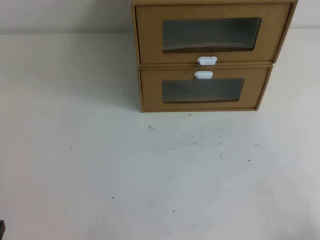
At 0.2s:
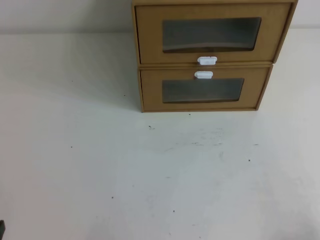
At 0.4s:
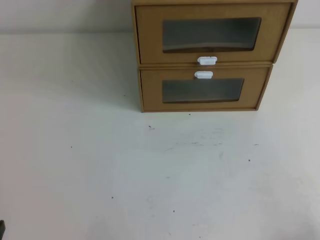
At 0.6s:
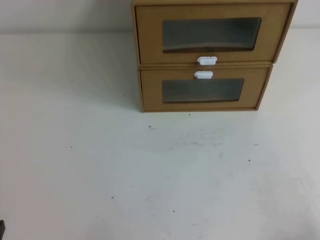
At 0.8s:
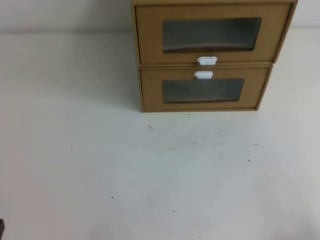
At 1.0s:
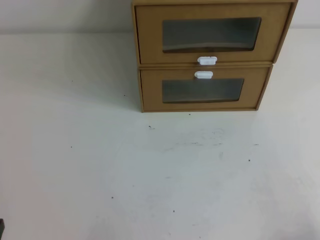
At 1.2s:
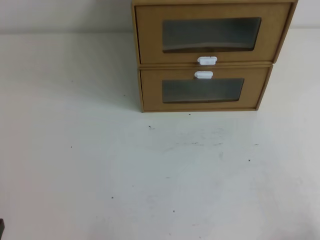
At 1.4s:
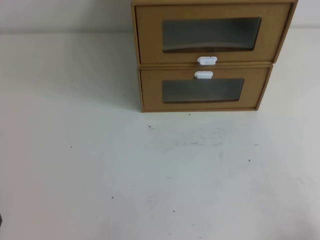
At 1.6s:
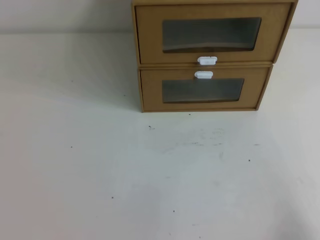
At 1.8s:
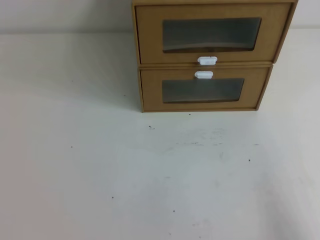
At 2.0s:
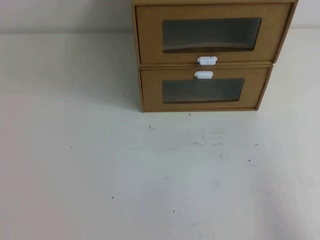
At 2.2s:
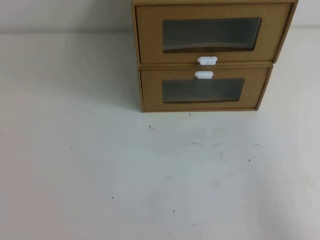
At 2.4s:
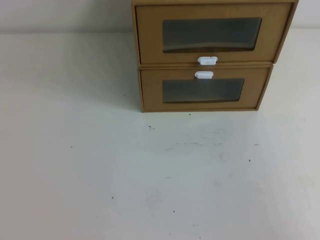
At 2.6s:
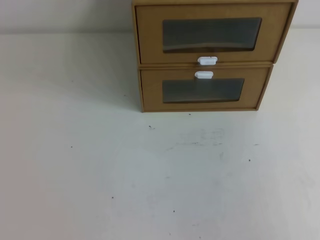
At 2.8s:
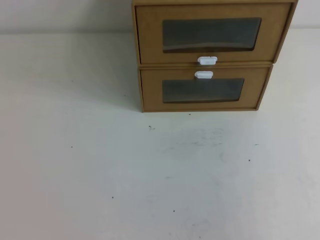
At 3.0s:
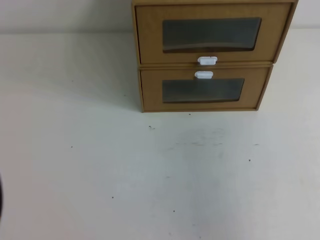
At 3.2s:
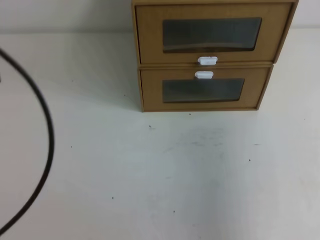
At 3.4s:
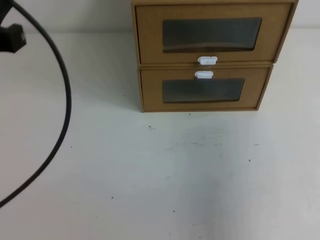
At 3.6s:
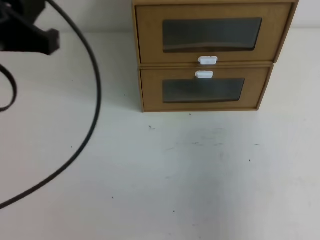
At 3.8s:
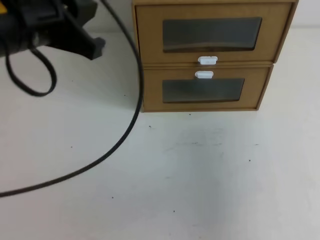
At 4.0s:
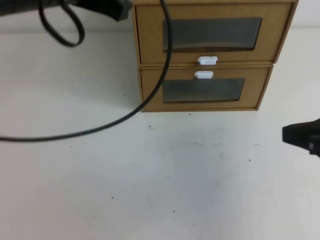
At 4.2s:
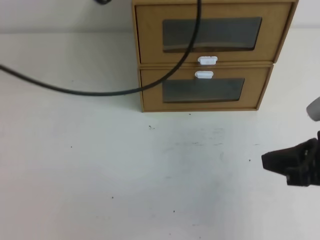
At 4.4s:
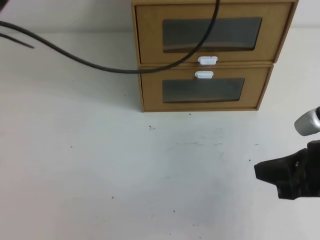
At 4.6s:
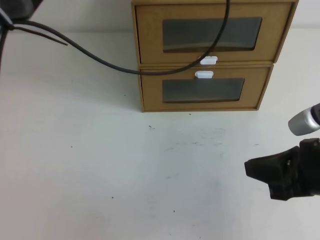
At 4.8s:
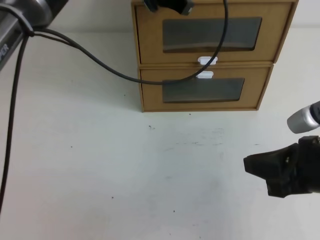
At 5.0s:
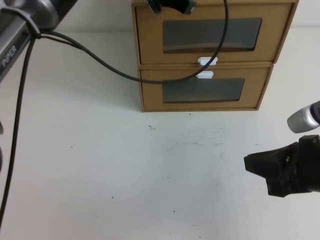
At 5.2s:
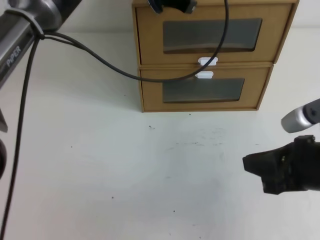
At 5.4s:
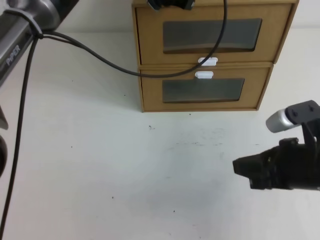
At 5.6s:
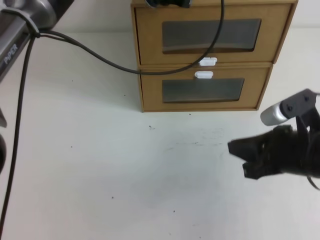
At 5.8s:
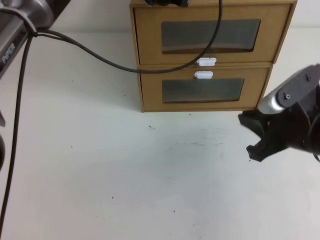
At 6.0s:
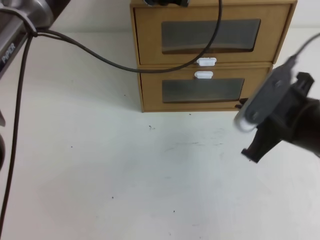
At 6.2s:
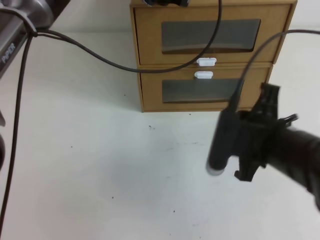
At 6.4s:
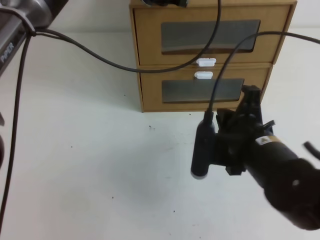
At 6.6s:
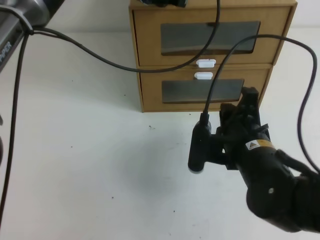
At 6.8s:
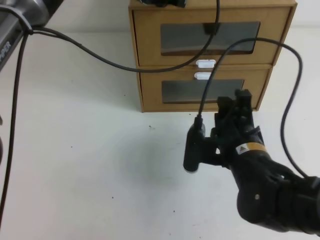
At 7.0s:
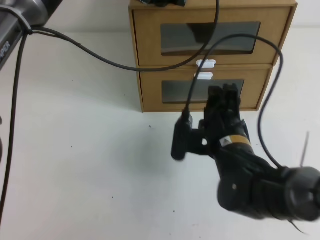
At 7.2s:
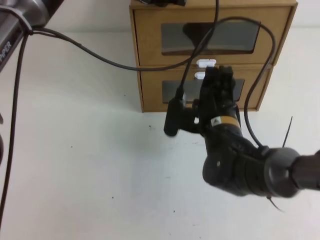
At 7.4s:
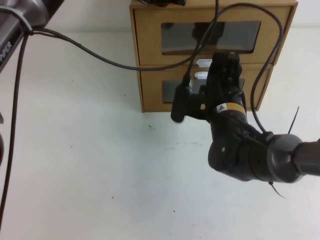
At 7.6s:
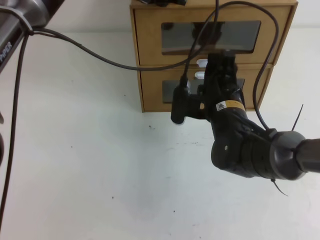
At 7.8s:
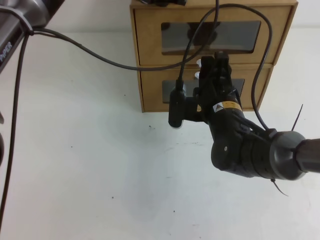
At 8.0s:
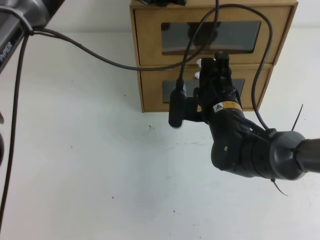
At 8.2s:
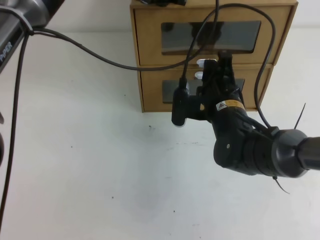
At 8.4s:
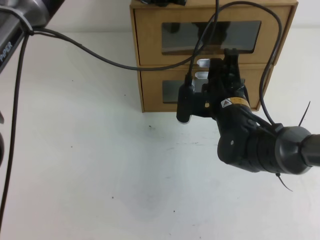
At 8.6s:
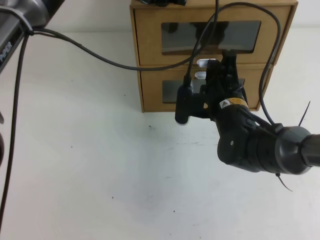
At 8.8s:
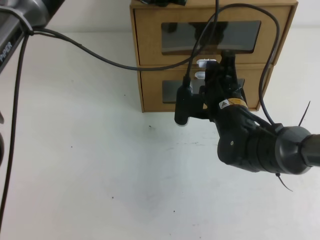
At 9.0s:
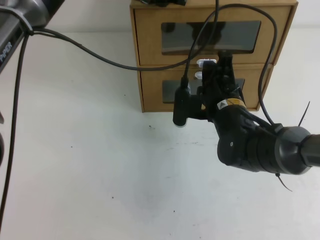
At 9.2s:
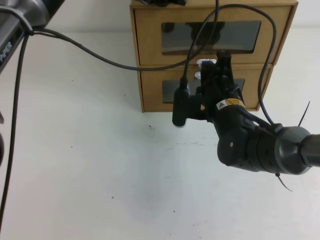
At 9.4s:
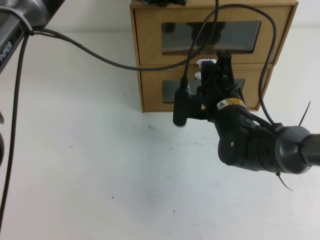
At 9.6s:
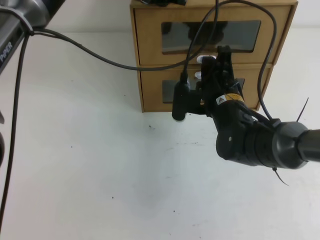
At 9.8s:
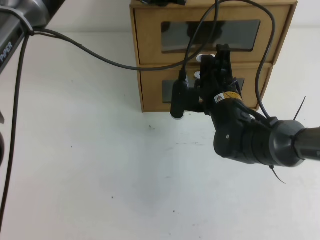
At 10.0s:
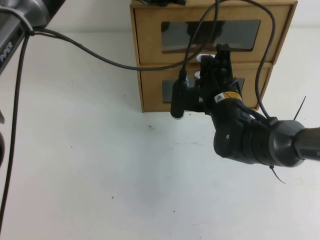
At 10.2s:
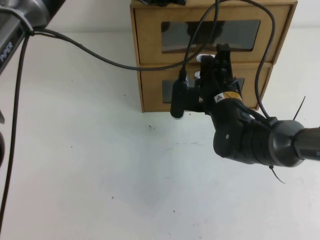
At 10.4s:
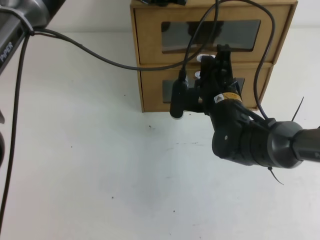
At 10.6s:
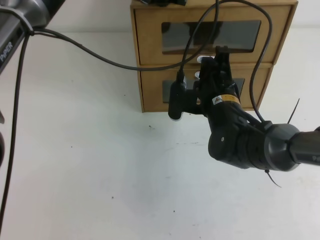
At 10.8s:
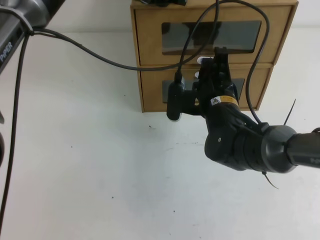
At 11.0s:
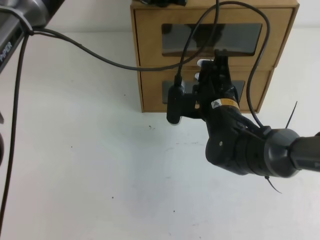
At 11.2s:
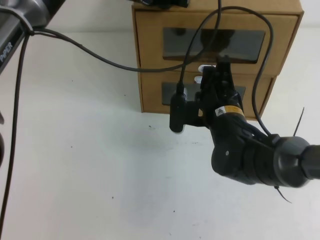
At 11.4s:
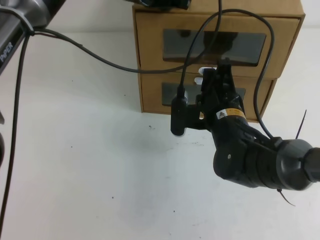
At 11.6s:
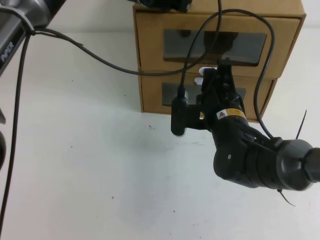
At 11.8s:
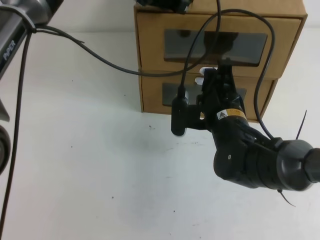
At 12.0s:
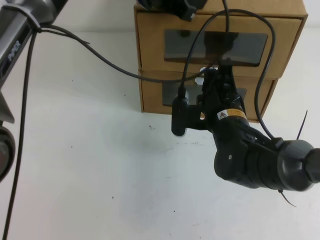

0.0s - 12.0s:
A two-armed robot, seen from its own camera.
Task of the whole recording: open the shoebox on the table.
1.6s - 3.0s: The grippers both shift upward by some 20 cm.
3.0s - 4.4s: The left gripper moves forward and to the right, roughly 35 cm, while the right gripper shifts roughly 20 cm forward, downward and to the left.
4.4s - 6.0s: The right gripper goes about 5 cm forward. Meanwhile the left gripper goes approximately 10 cm forward and downward.
6.0s - 7.6s: The right gripper travels to the left and forward by roughly 15 cm, and opens its fingers.
7.6s - 9.0s: The right gripper closes up.
9.0s - 10.4s: Both grippers stay put.

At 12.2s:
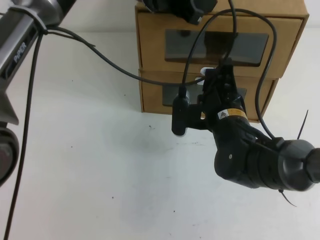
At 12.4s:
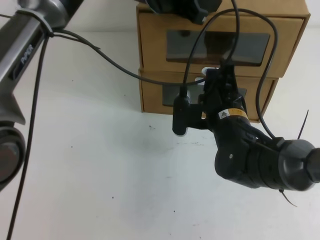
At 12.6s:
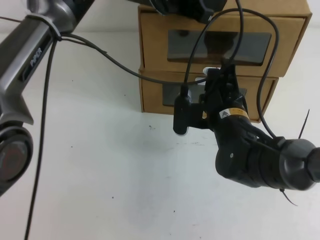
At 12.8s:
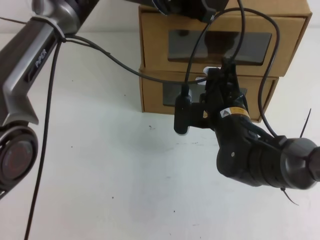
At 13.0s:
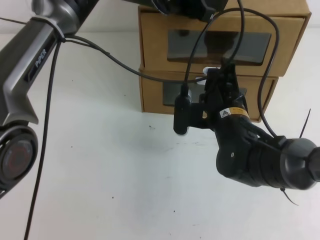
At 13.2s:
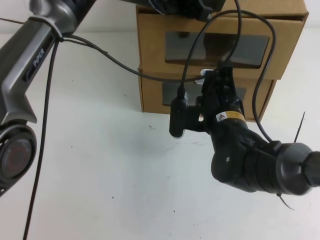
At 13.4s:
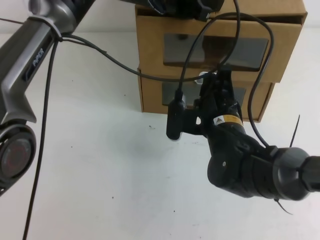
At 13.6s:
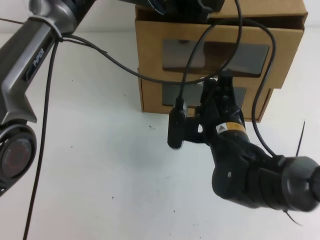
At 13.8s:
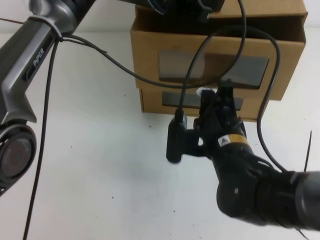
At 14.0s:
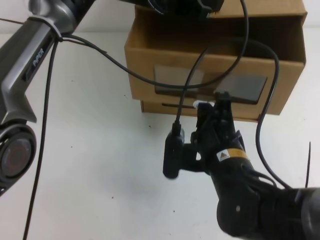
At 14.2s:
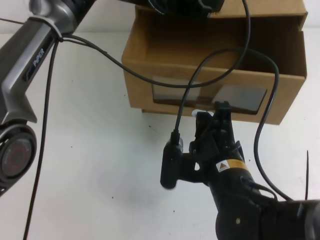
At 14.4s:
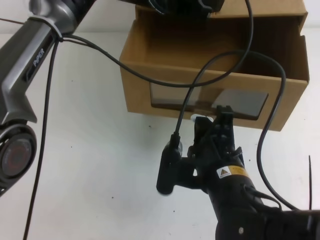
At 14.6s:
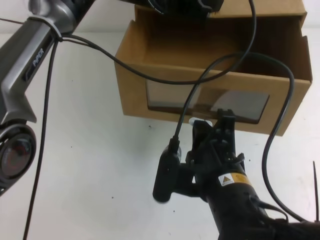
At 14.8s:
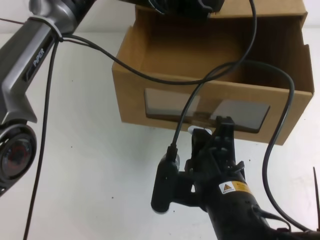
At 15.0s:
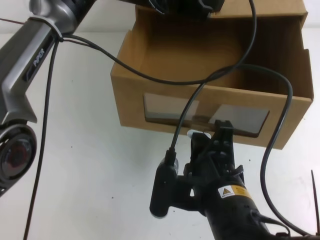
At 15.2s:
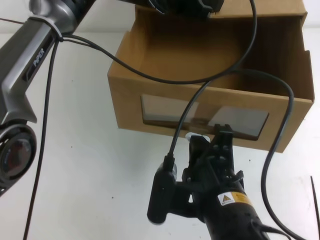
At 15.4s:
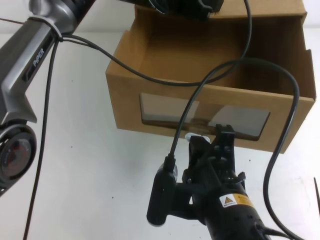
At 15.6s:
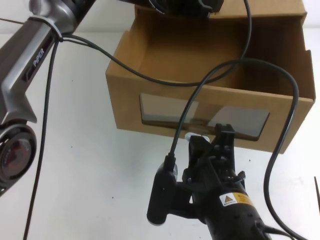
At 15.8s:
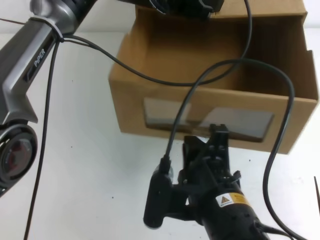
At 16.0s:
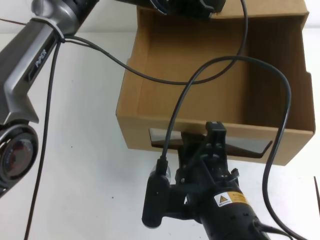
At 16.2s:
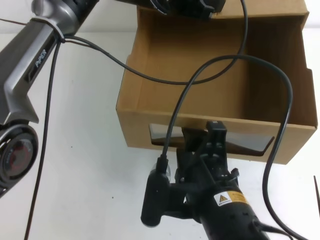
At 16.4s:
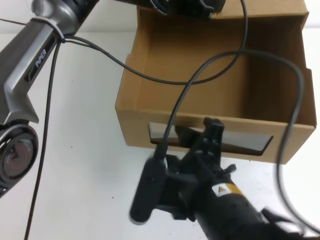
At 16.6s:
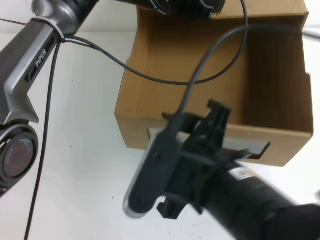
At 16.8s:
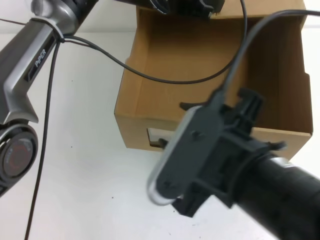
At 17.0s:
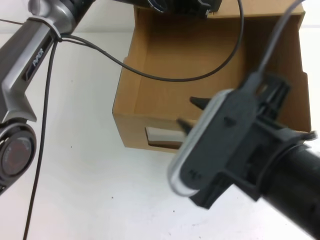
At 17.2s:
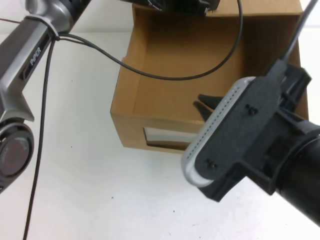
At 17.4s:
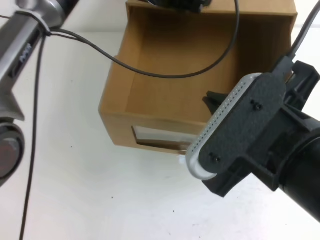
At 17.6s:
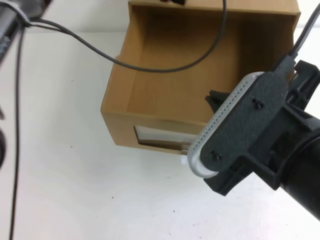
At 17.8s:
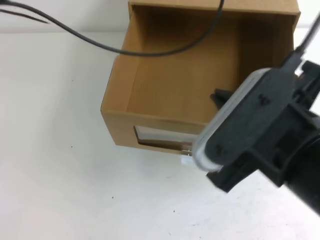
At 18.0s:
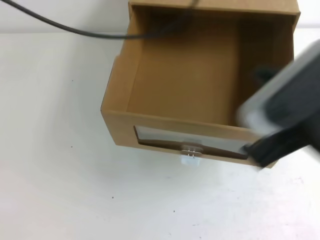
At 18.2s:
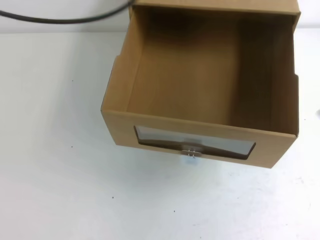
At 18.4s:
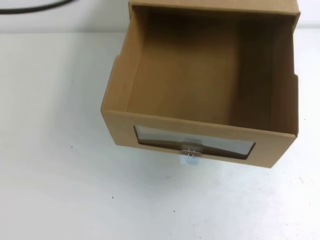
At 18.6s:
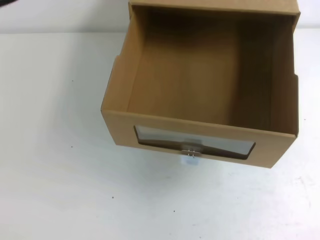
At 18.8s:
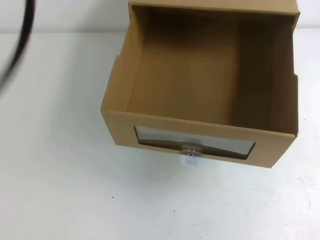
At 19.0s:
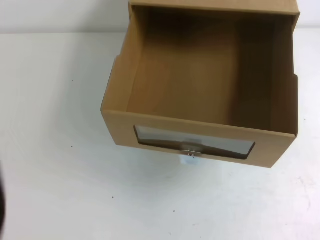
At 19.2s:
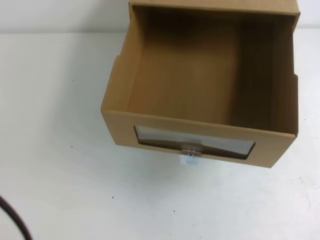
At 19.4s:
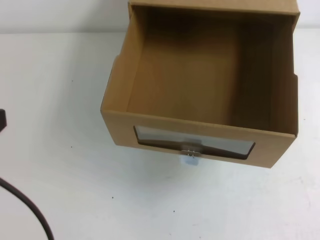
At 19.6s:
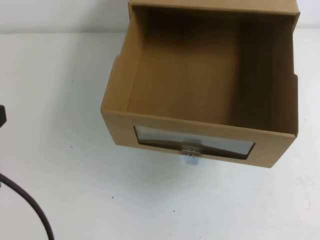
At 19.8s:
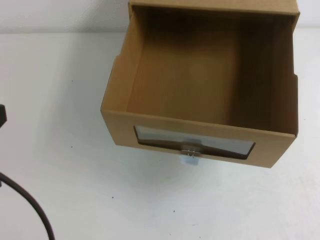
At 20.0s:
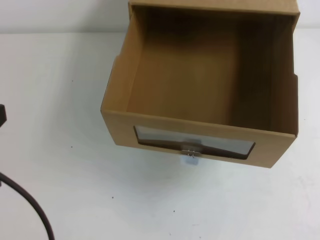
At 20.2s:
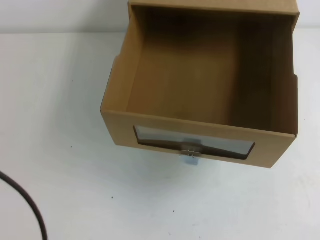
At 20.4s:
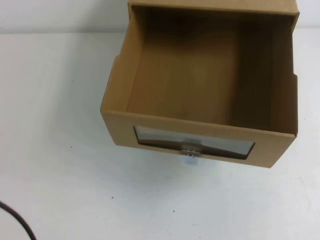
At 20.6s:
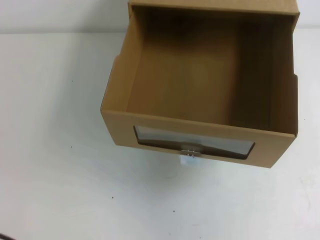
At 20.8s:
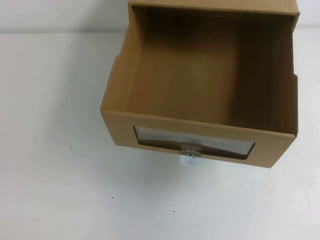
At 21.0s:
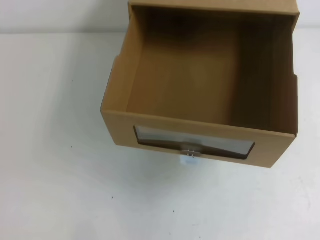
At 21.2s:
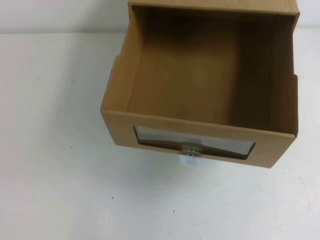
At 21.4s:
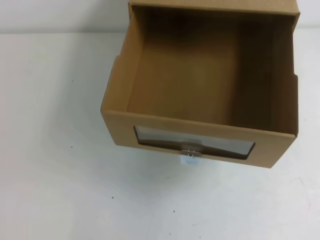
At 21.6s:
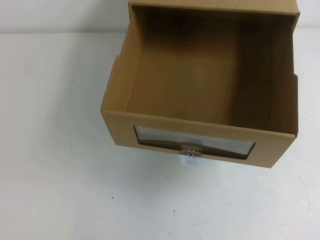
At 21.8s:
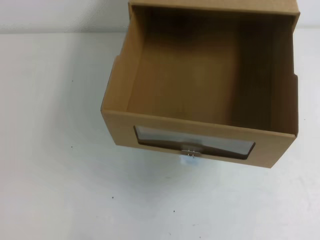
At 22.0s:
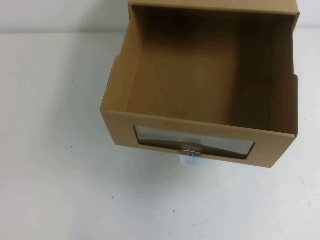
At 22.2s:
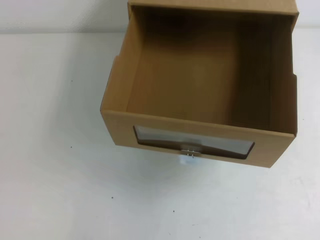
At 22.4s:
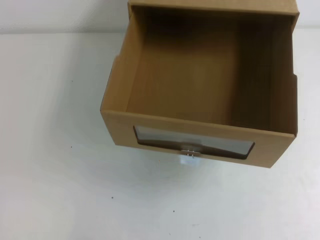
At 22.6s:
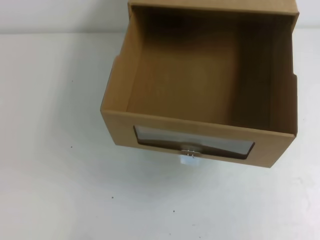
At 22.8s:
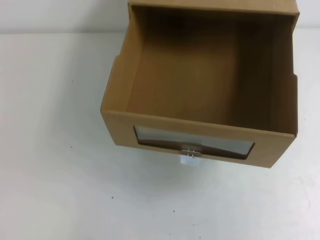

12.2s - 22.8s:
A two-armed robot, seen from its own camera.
Task of the whole recording: open the shoebox on the table.
12.2s - 13.8s: The right gripper shifts some 5 cm backward.
13.8s - 15.2s: The right gripper is displaced backward by roughly 10 cm.
15.2s - 16.8s: The right gripper travels upward by some 10 cm, and opens up.
16.8s - 18.2s: The left gripper moves upward, to the left and backward, roughly 25 cm; the right gripper heads to the right and upward, covering roughly 15 cm, and closes its fingers.
18.2s - 19.8s: The left gripper moves backward, downward and to the left, roughly 30 cm.
19.8s - 21.2s: The left gripper travels downward by about 20 cm.
